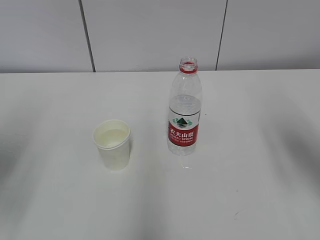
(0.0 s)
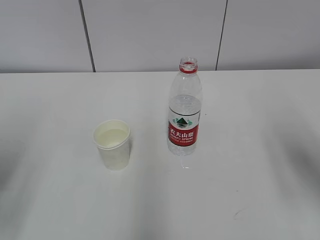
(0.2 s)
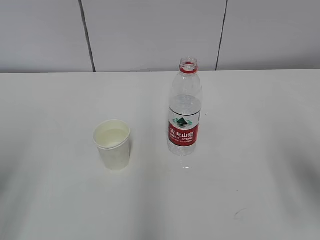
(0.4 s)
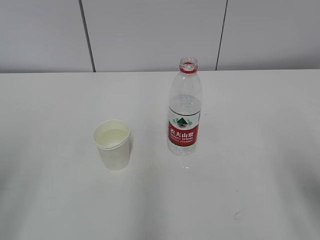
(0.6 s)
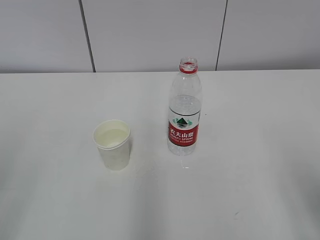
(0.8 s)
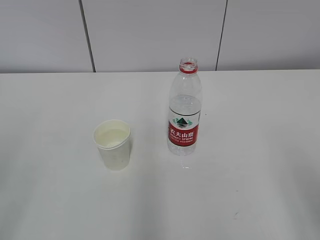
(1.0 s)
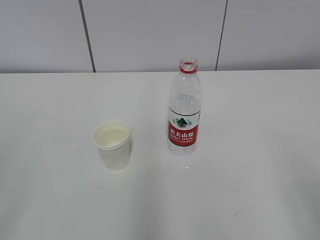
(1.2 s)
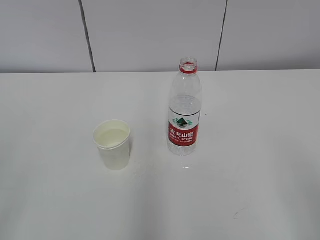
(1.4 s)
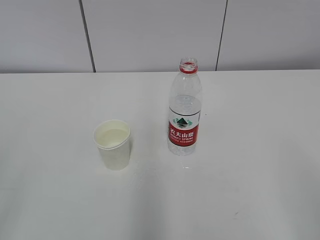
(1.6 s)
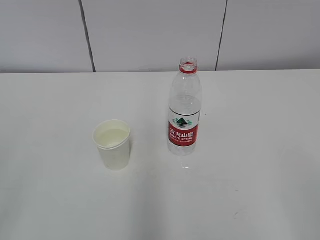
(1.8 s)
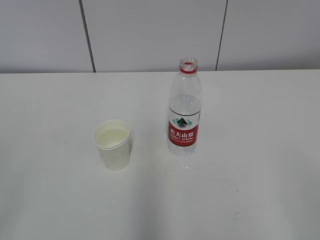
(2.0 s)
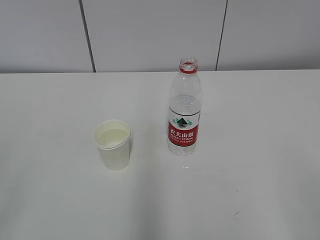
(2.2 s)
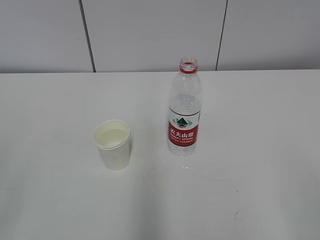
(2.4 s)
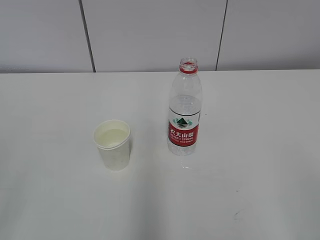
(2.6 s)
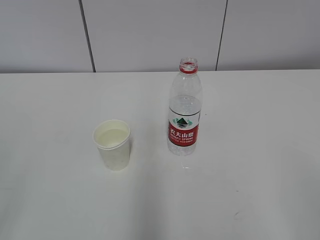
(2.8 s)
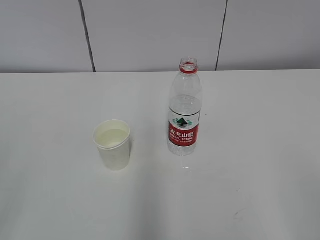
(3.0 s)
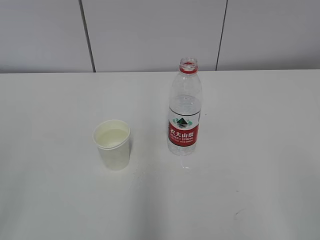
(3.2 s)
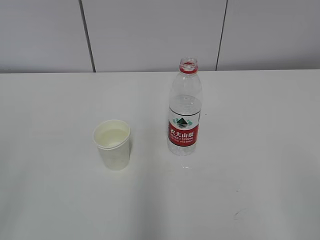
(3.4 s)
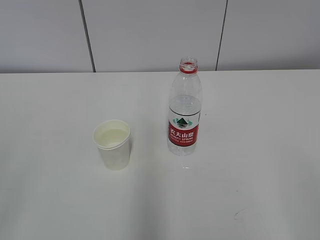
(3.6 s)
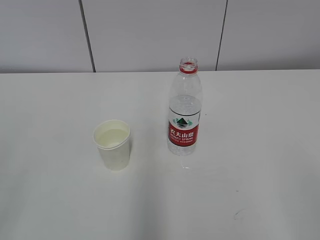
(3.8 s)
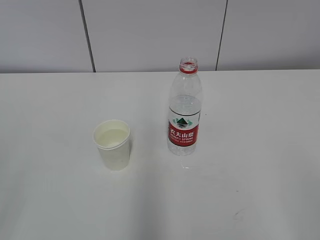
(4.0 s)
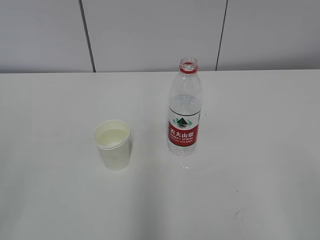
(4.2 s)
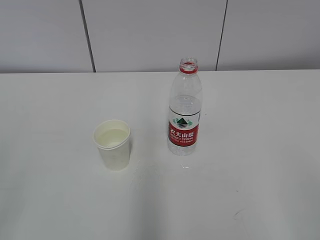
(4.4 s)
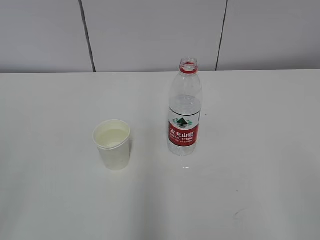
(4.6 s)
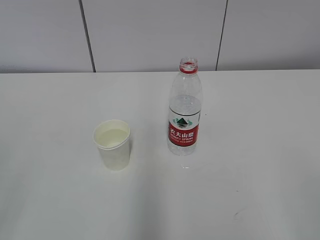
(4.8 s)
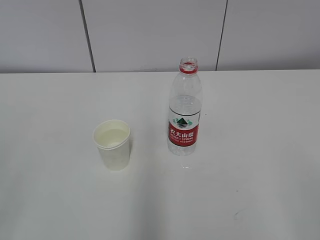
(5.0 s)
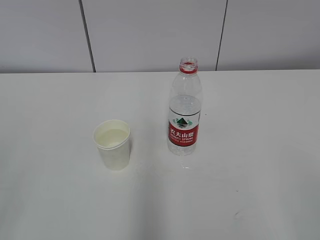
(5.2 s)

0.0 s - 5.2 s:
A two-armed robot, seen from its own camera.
0.0 s - 1.8 s: The grippers both shift backward by about 20 cm.
1.8 s - 5.2 s: Neither gripper changes place.

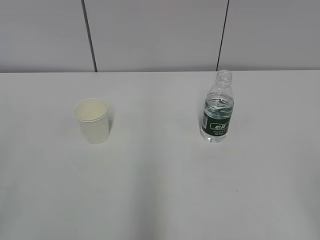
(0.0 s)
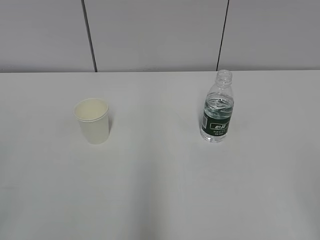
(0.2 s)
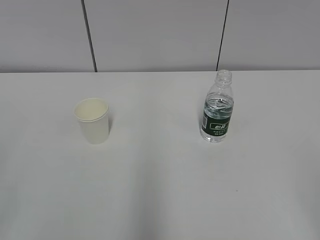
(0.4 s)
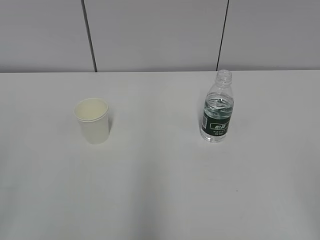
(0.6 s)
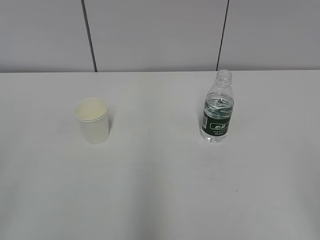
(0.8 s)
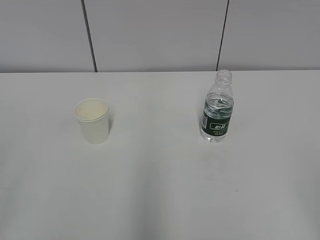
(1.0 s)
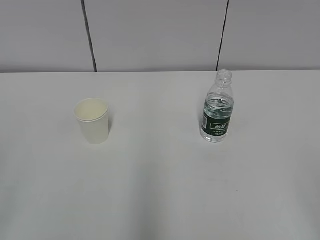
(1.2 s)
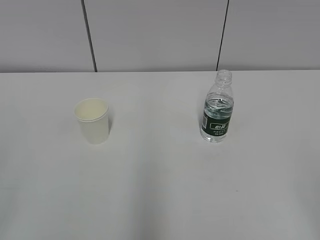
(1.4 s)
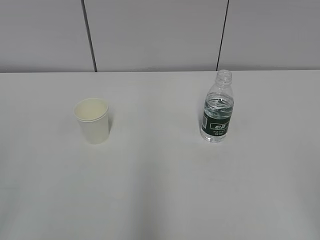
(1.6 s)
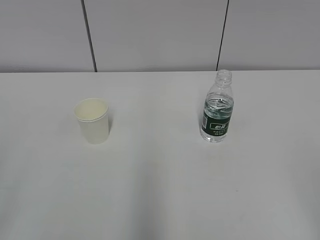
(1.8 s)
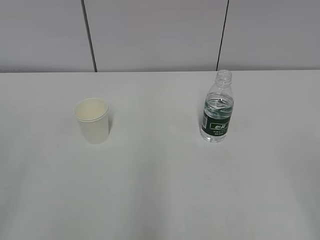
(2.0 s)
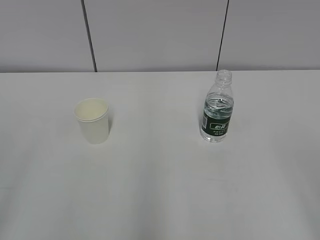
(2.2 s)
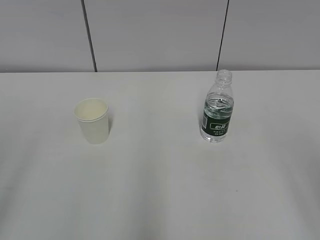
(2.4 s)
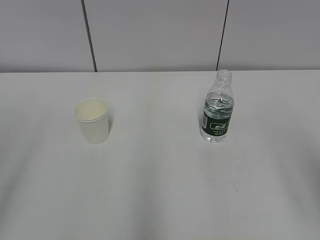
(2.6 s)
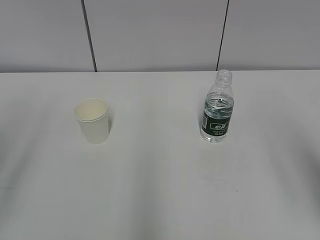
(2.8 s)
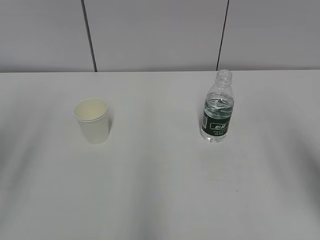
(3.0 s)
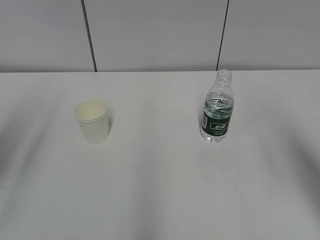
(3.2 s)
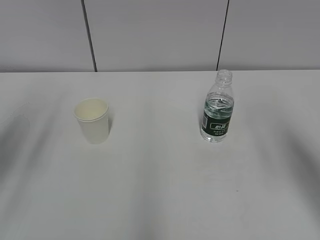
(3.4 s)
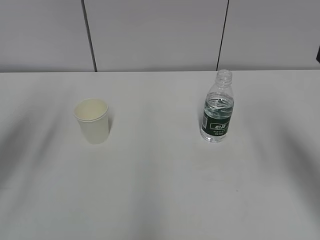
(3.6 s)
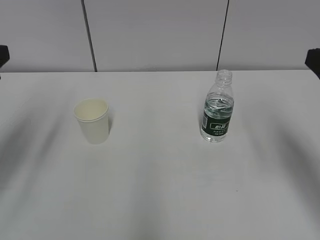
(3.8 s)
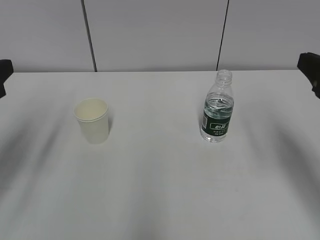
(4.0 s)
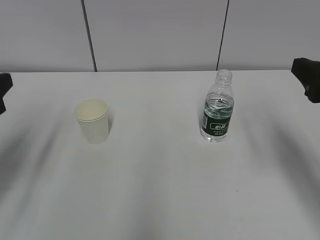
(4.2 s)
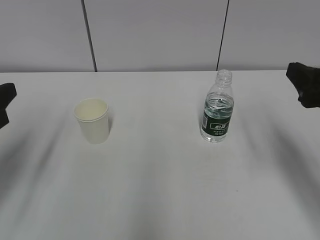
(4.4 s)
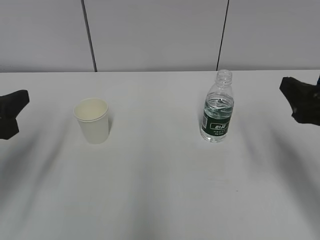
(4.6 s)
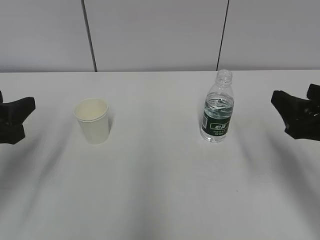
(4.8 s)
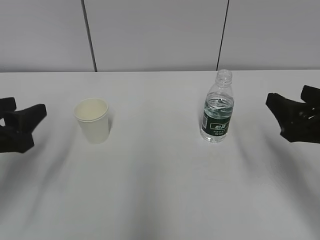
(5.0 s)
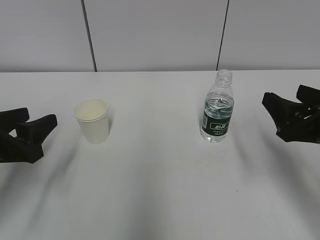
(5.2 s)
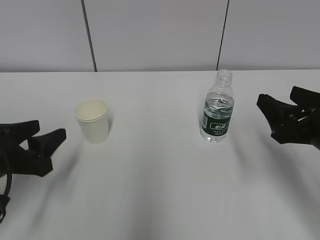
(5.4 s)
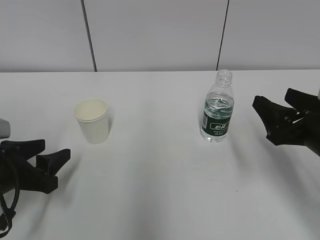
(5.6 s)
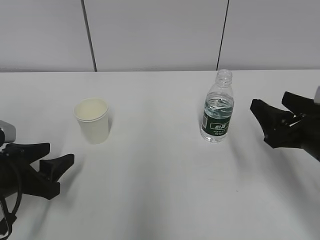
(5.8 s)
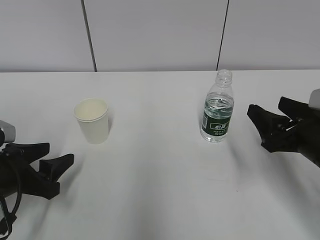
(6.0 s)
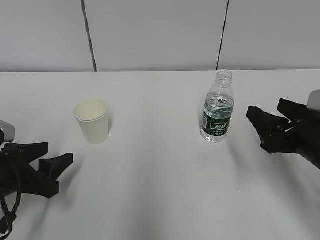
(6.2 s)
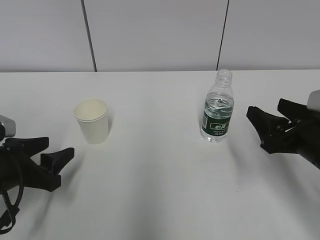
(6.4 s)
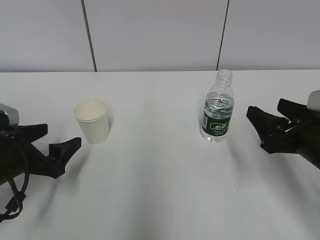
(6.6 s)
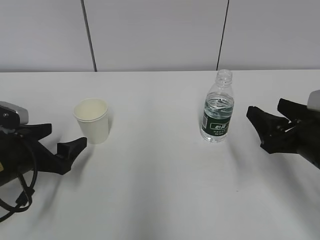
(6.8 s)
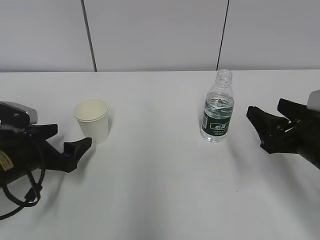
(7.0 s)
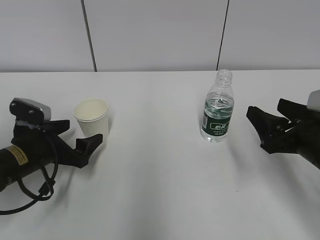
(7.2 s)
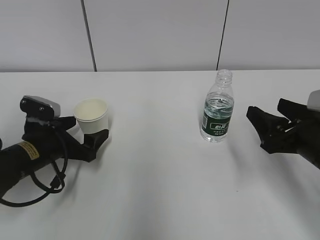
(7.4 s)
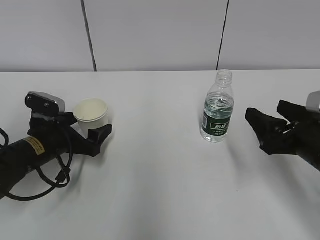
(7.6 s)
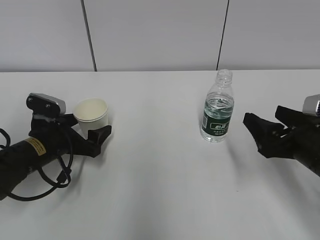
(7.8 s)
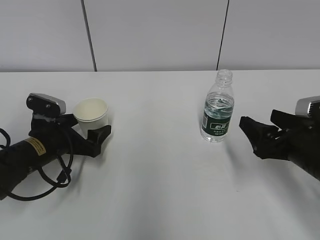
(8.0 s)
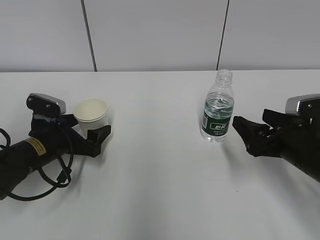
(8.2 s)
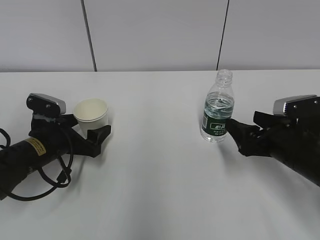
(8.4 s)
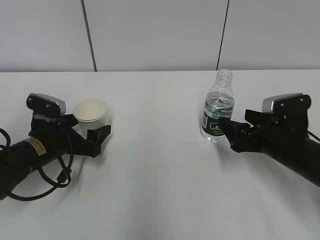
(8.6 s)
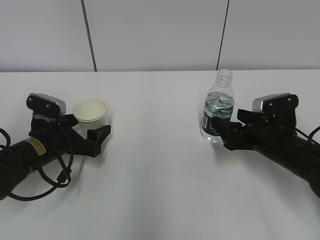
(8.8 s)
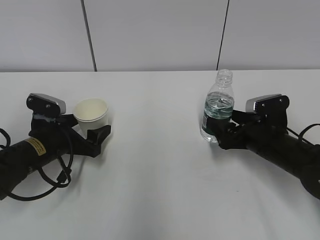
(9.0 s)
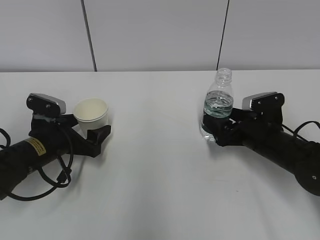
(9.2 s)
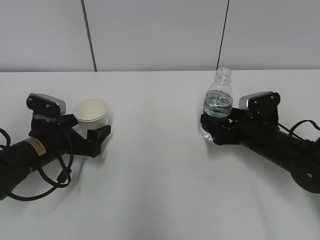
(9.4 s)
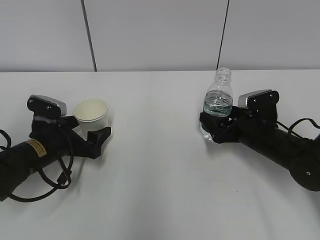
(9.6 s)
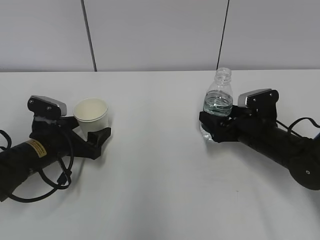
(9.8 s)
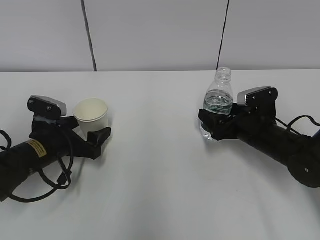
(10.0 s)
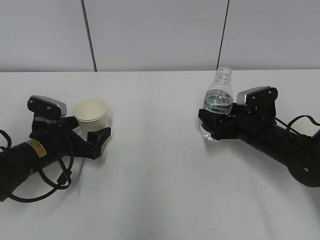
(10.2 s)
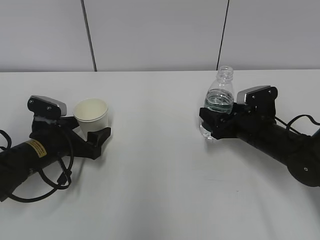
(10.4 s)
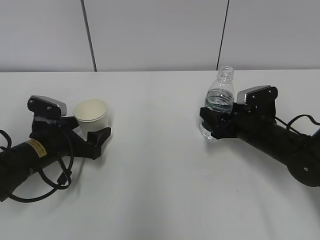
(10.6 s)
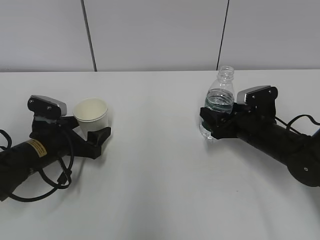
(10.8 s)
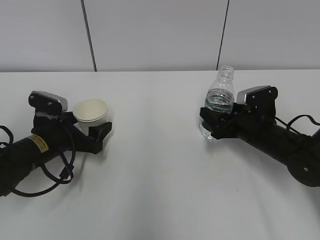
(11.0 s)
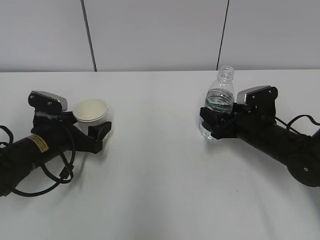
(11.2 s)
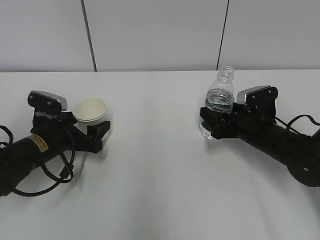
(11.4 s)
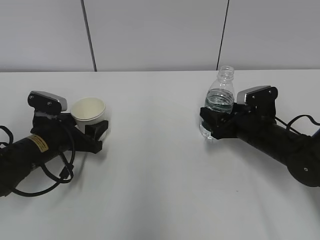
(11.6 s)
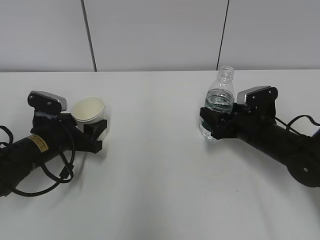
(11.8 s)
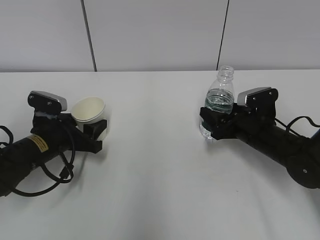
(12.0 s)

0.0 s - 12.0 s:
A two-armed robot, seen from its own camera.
Step, 0.0 s - 10.0 s: Grab the paper cup with the left hand.
1.6 s - 3.0 s: The right gripper travels forward and upward by about 15 cm.
3.0 s - 4.4 s: The left gripper moves downward and forward, roughly 15 cm. The right gripper goes about 15 cm forward and downward.
4.4 s - 6.0 s: Both grippers travel together downward, roughly 10 cm.
6.0 s - 7.6 s: The left gripper travels forward by about 10 cm, and opens its fingers.
7.6 s - 9.0 s: The right gripper travels forward and downward by about 10 cm.
9.0 s - 10.4 s: There are only small adjustments of the grippers.
10.4 s - 12.0 s: The left gripper closes up.

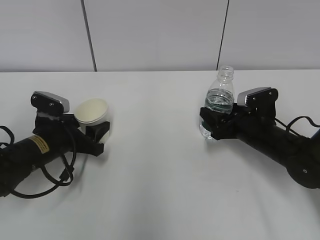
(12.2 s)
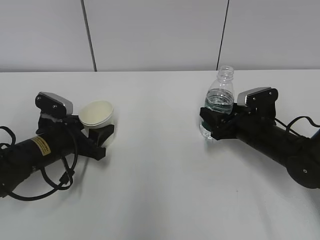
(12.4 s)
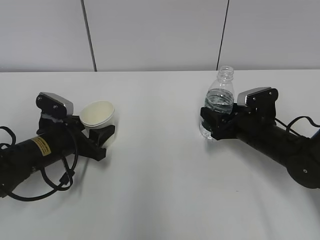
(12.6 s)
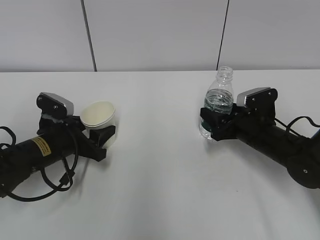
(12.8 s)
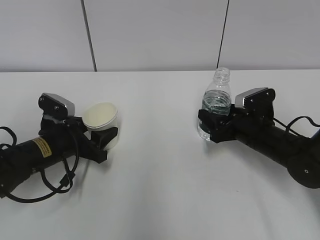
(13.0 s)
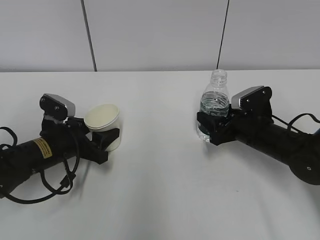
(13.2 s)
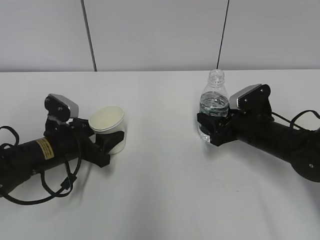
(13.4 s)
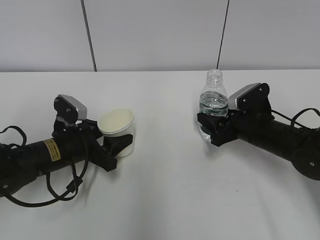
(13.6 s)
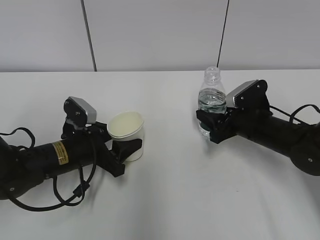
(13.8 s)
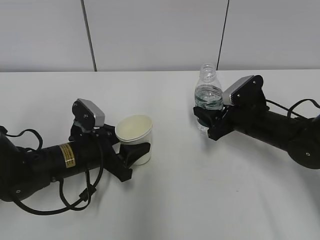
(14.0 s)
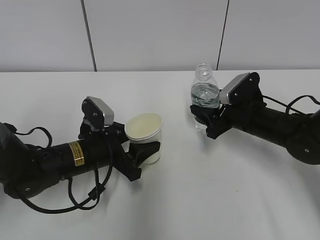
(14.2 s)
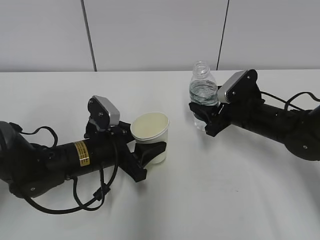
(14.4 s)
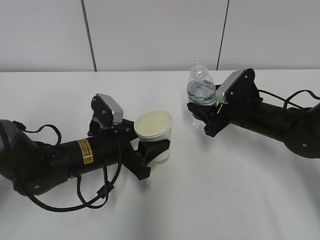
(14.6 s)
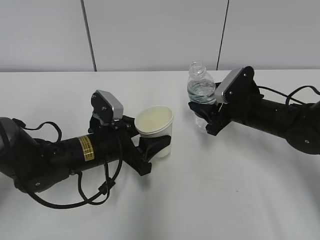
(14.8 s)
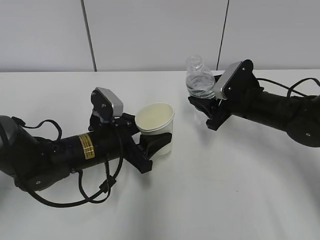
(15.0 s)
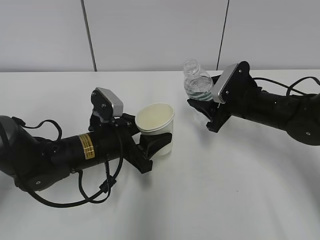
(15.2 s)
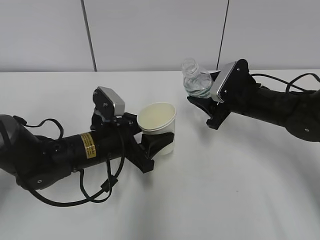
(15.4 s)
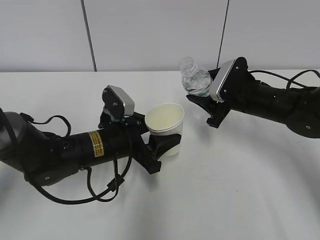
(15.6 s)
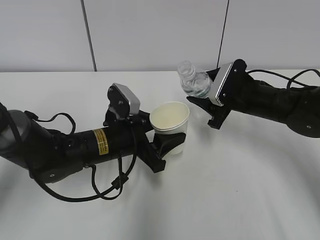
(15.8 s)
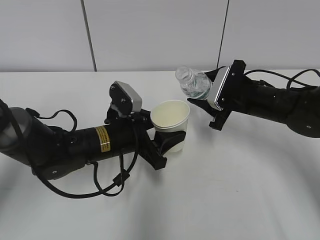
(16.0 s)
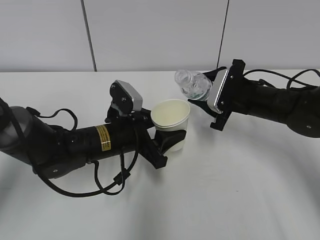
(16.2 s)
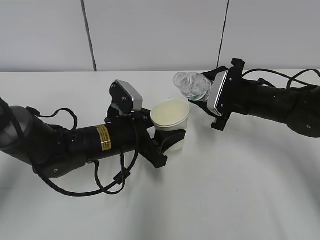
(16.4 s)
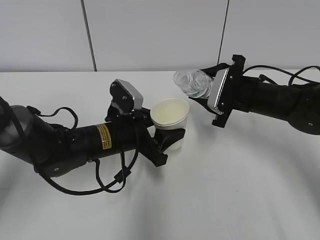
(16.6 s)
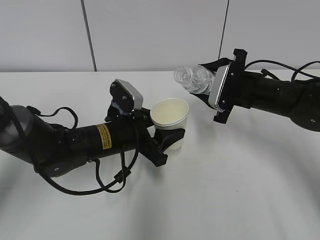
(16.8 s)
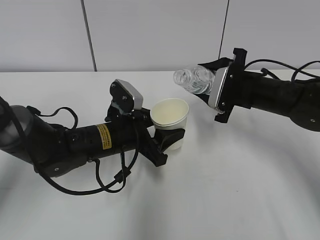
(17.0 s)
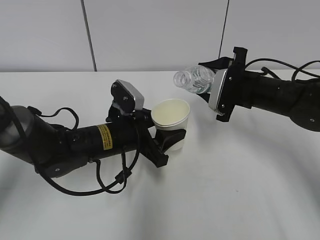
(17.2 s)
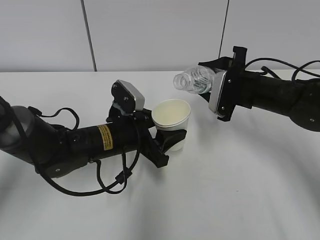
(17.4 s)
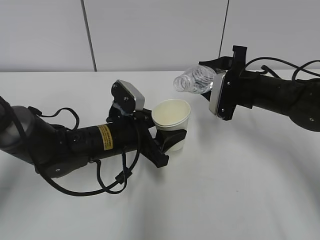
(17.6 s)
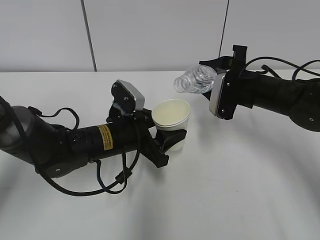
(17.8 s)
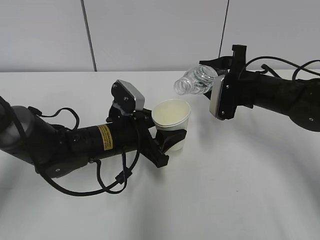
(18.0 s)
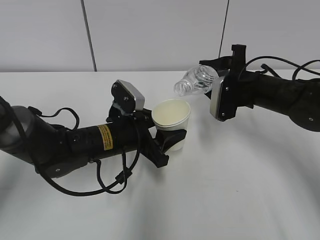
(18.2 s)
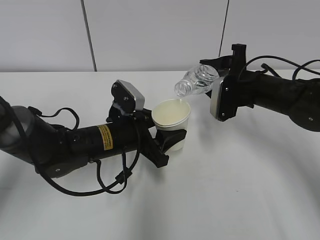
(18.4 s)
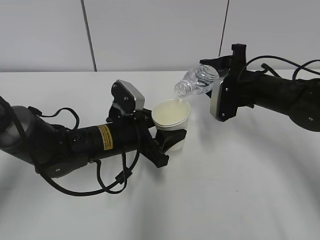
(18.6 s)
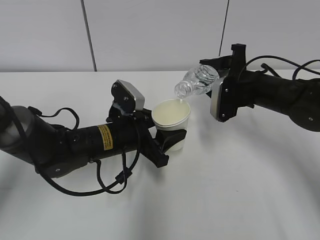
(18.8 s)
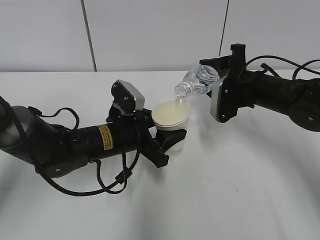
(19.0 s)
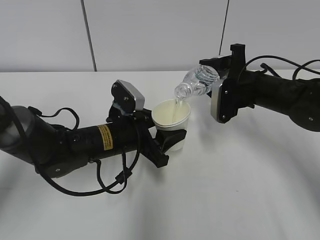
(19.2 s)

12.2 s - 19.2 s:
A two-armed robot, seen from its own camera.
Step, 12.2 s - 15.2 s: Lift the paper cup with the left hand.
12.2 s - 13.6 s: The grippers stay close to where they were, moving slightly.
13.6 s - 15.0 s: The left gripper heads to the right, covering approximately 5 cm, while the right gripper changes place by roughly 5 cm.
17.8 s - 19.2 s: The grippers make only small movements.
